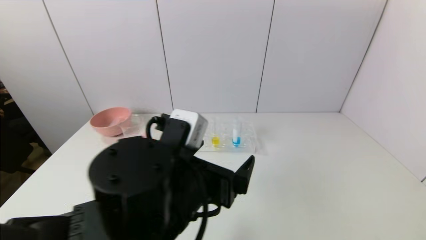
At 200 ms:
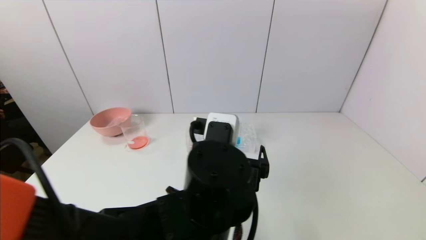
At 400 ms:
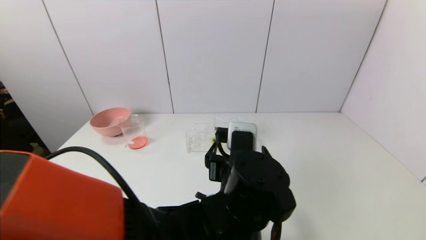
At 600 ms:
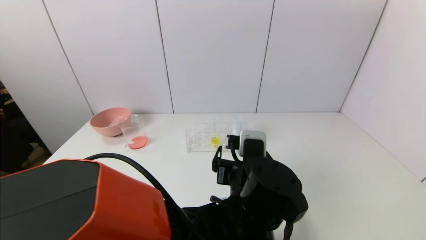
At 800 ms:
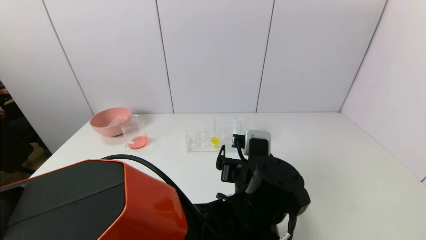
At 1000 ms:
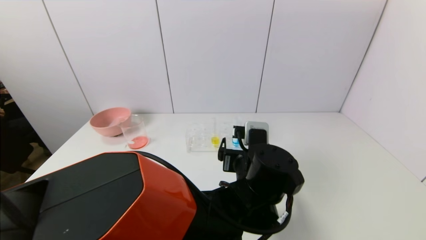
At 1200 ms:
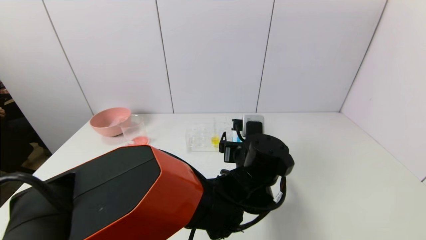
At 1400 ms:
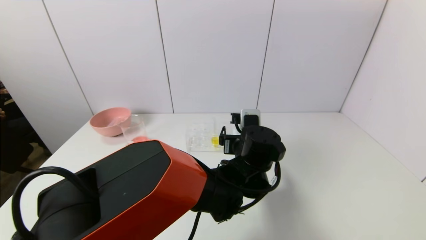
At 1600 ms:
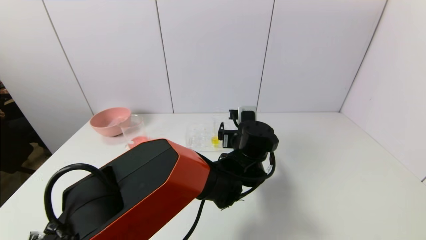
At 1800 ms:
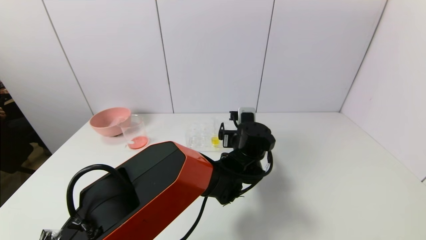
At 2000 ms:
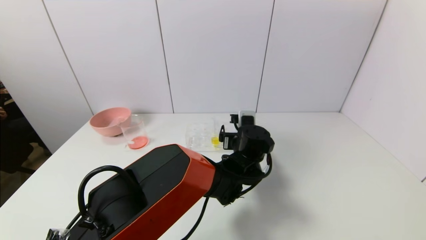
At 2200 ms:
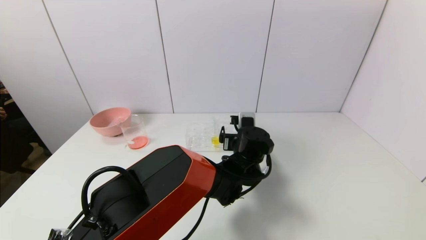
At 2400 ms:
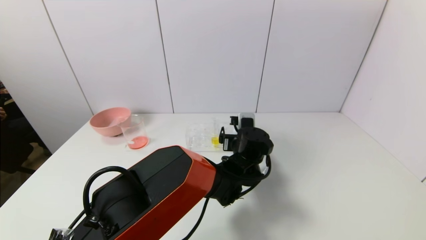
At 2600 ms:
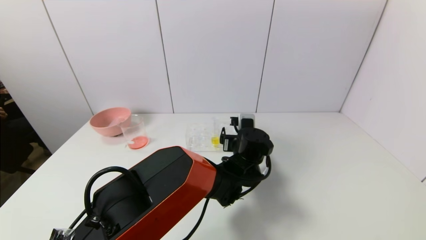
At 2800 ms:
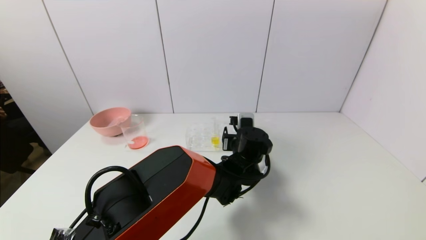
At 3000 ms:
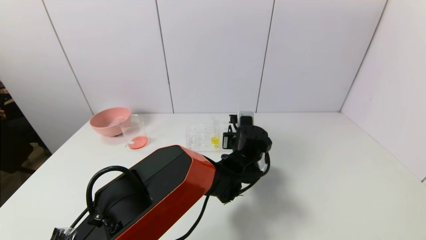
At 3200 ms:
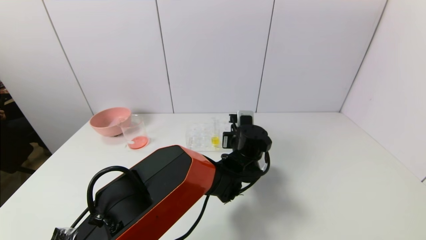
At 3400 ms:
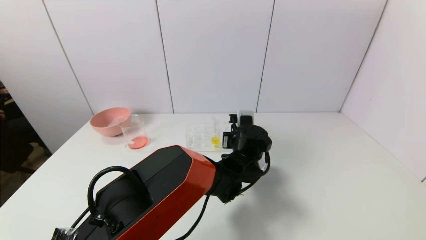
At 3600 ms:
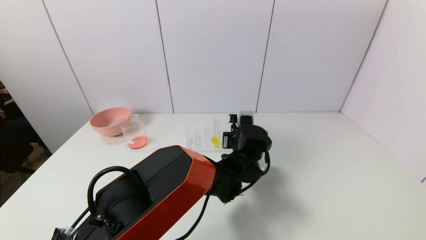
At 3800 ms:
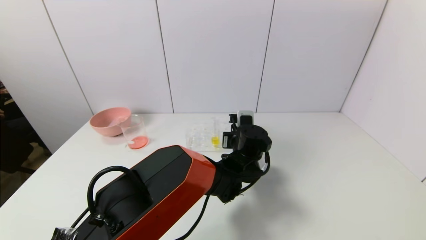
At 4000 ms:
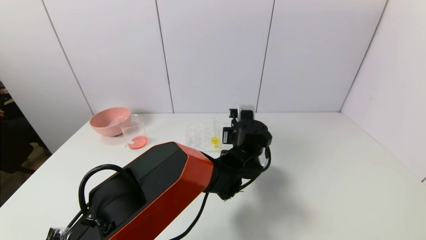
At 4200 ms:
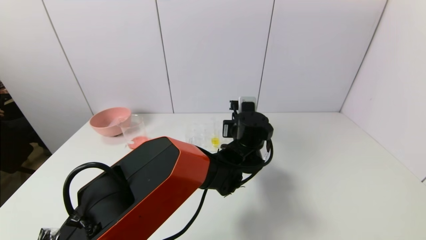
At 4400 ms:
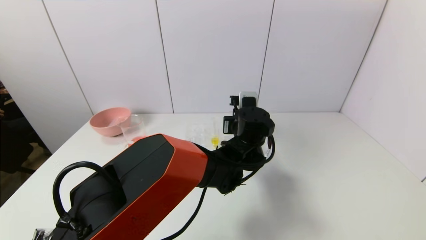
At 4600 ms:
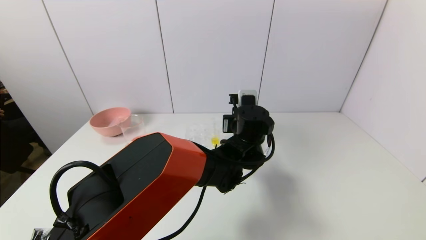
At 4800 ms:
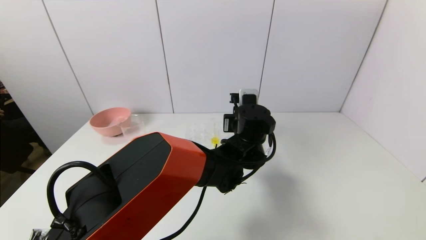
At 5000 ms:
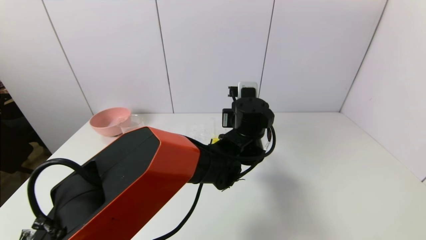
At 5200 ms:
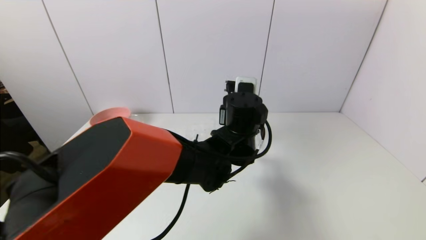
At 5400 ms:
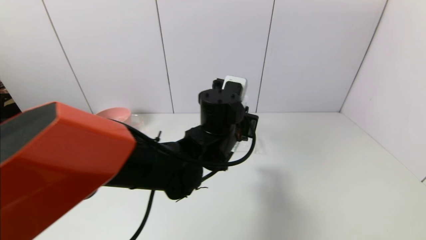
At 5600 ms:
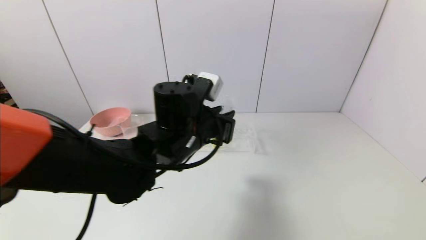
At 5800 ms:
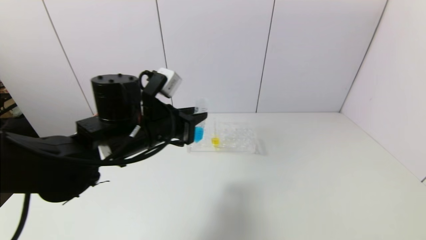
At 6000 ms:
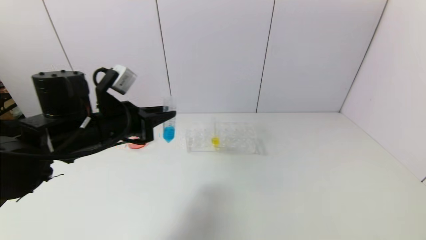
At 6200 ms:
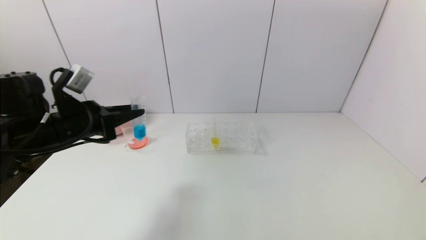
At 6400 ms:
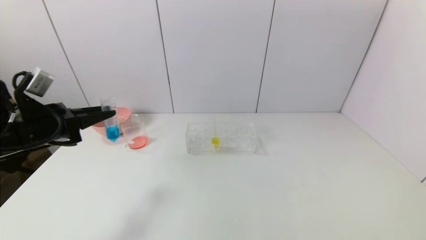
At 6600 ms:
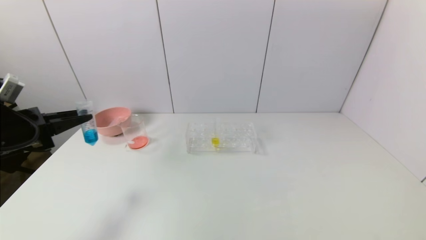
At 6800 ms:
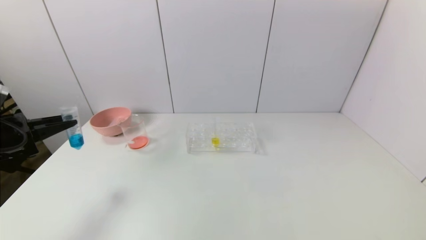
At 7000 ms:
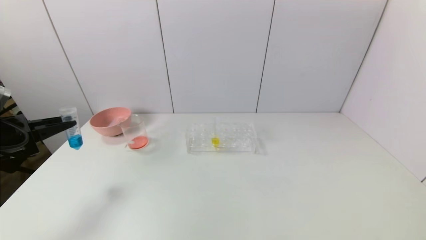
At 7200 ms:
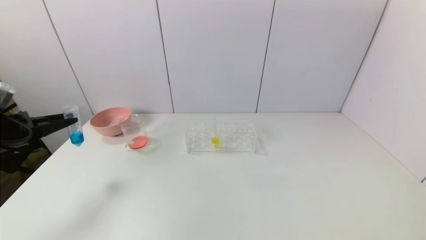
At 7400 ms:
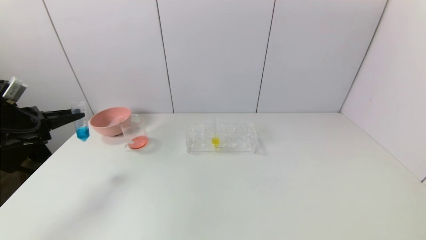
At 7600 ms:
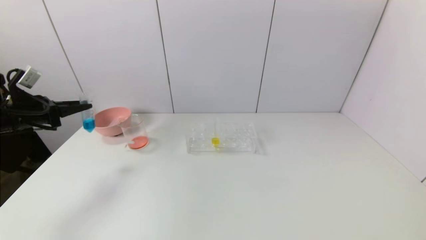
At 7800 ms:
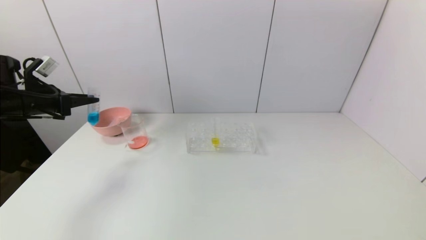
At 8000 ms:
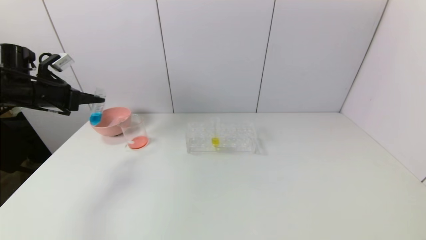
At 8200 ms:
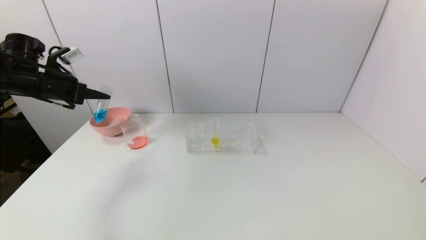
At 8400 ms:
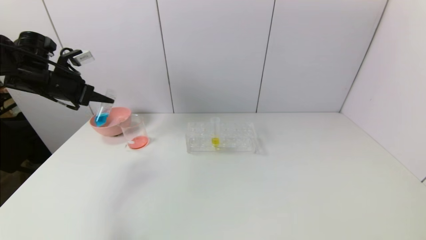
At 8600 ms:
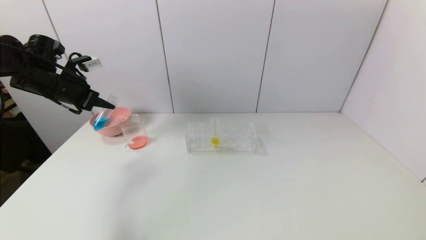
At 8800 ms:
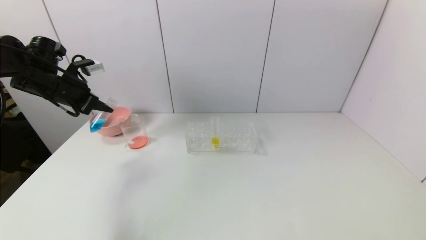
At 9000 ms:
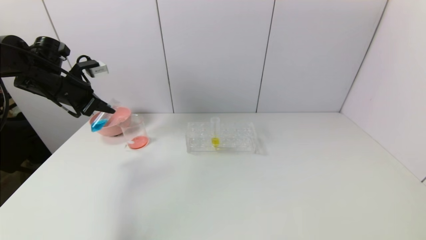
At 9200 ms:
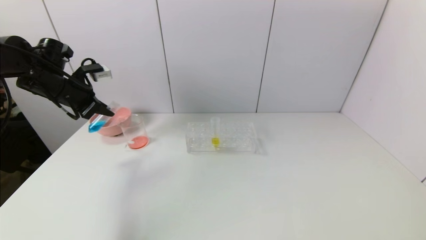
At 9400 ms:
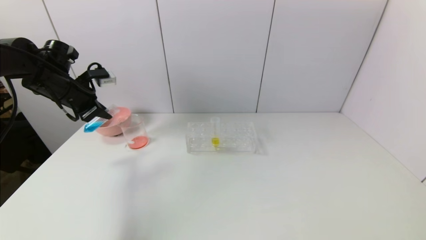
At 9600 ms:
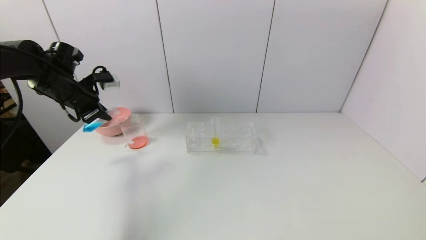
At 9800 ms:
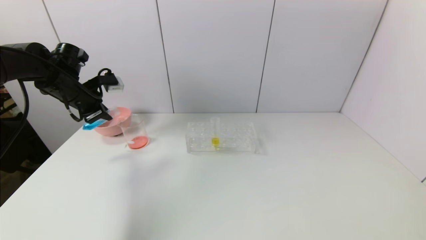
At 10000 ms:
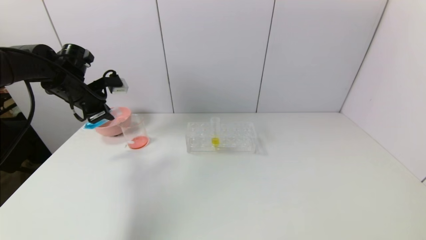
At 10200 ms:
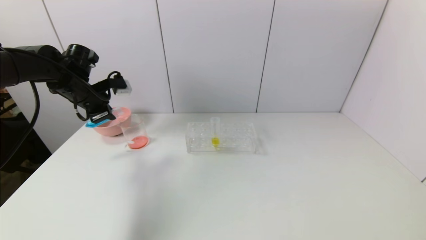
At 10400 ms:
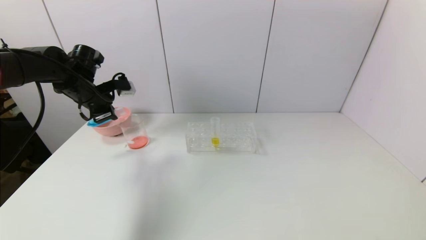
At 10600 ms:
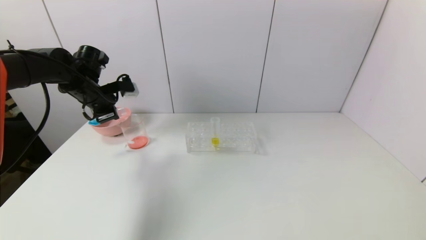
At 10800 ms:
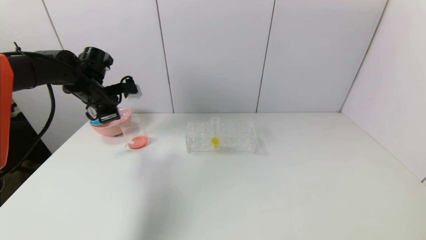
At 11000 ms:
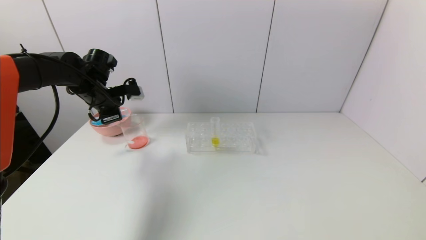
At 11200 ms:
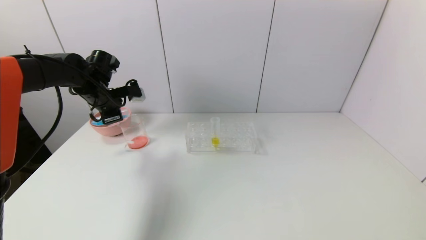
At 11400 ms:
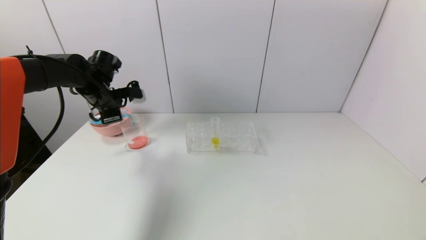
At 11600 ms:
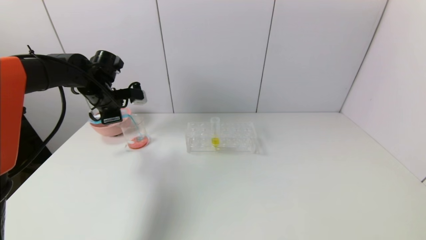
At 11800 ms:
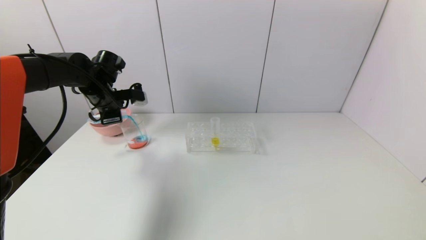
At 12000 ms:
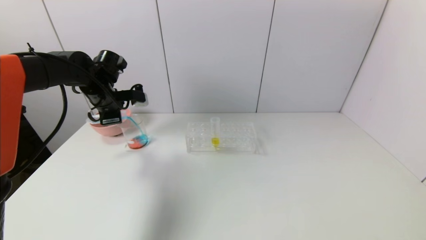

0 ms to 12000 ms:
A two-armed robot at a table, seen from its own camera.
Task of the whole recording: pick up the test tube with red pigment and the test tube with blue pigment by grippers and pour them into the container.
Step, 0 ms to 3200 ms: Grasp the blue reagent with the left gripper.
0 ms to 1600 ms: The left gripper moves forward, to the right and downward, roughly 25 cm.
1600 ms to 3000 ms: The left gripper closes its fingers.
3000 ms to 4400 ms: The left gripper travels upward by some 5 cm.
4400 ms to 6000 ms: The left gripper heads to the left, covering about 30 cm.
6000 ms to 7600 ms: The left gripper moves to the left, roughly 20 cm.
7600 ms to 9000 ms: The left gripper moves to the right and forward, about 10 cm.
9000 ms to 10400 ms: The left gripper ends up some 5 cm from where it was.
10400 ms to 12000 ms: The grippers stay close to where they were, moving slightly.

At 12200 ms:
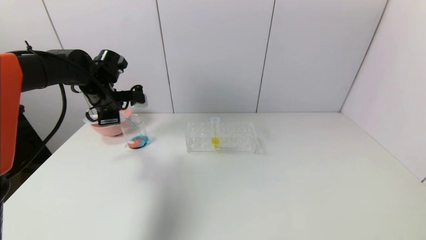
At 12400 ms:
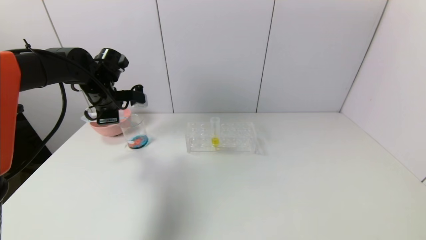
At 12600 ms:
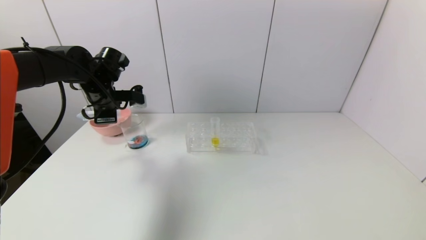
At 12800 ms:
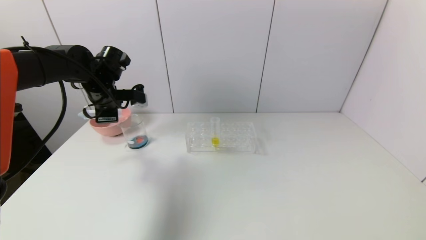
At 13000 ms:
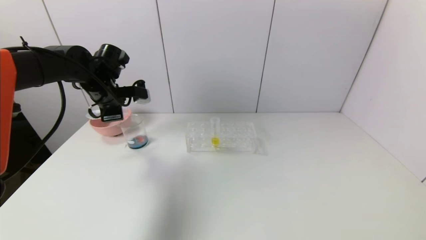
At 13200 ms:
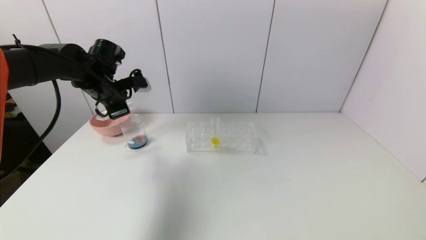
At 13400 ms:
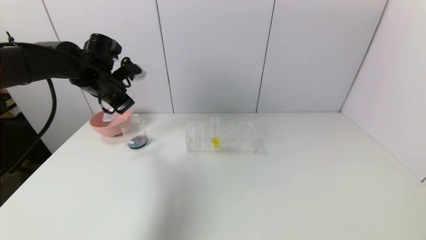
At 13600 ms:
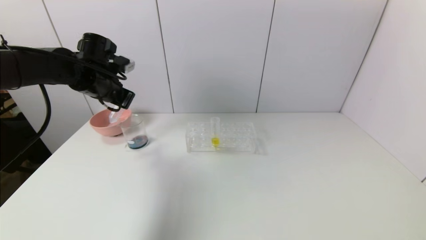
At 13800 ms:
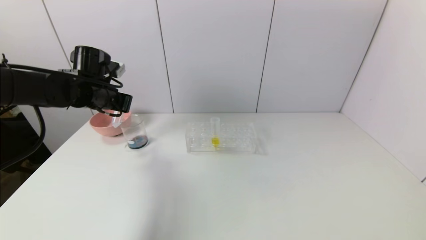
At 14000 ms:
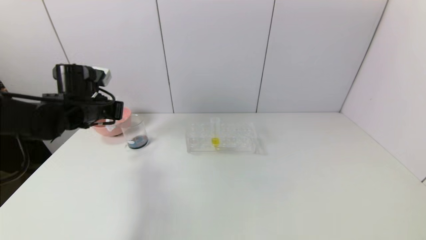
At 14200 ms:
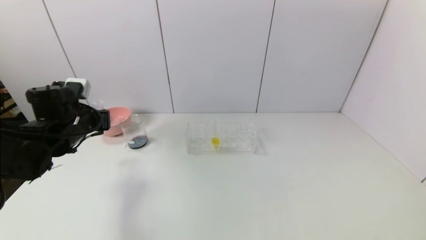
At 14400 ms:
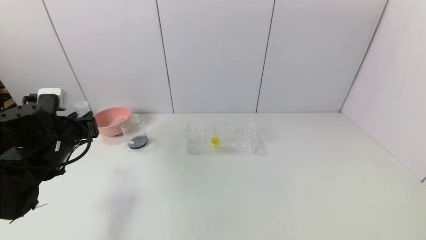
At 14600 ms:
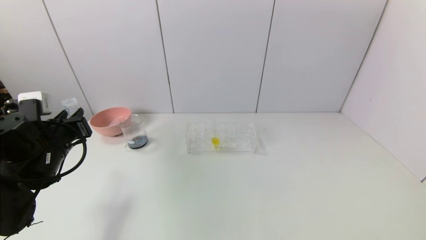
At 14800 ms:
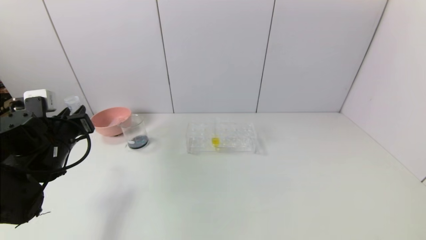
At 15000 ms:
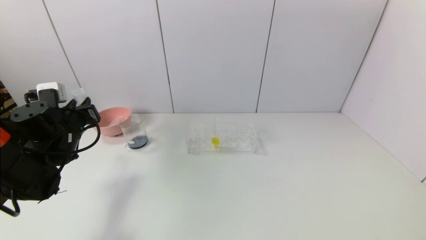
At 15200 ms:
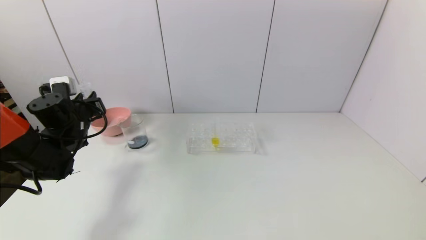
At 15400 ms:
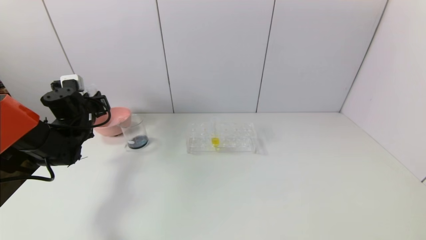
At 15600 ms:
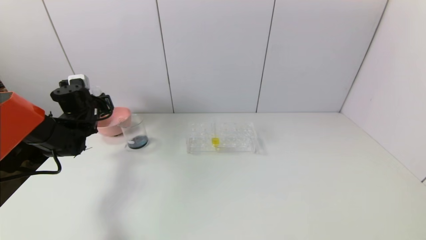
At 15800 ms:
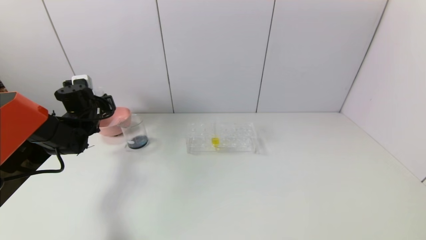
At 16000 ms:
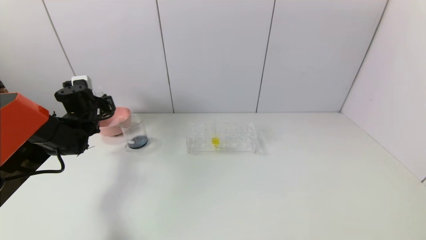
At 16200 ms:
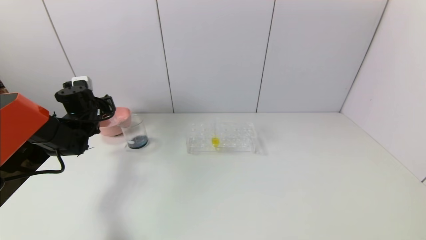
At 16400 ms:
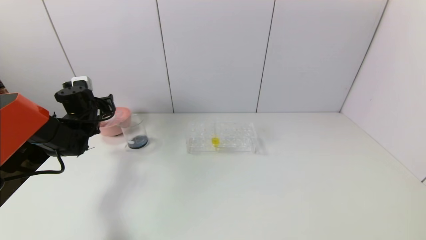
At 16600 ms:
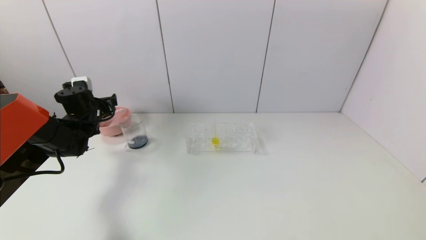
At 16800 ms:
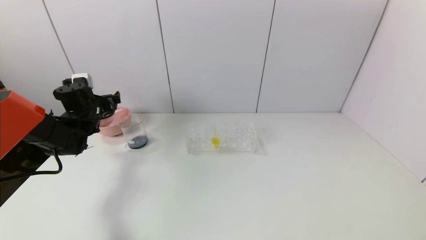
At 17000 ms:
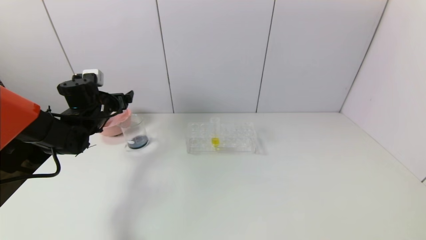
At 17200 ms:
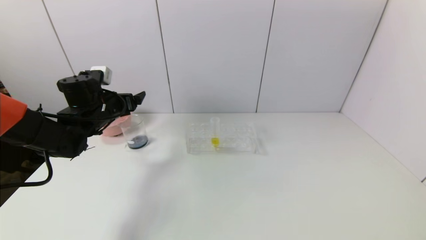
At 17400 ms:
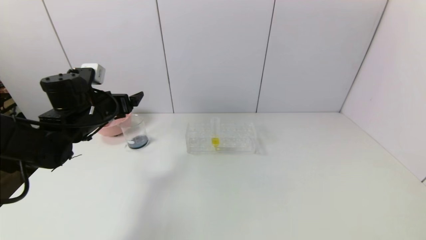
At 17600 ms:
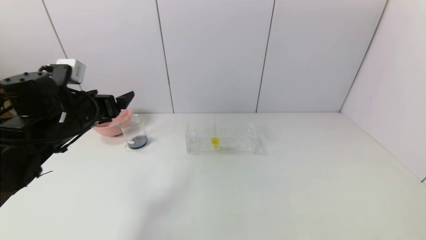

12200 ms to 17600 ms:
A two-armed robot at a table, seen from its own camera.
Task of the whole recording: pick up the test tube with red pigment and the test tube with blue pigment by grippers and pour them into the container.
Step, 13200 ms to 16400 ms: Place the test tube into the bowl with the left gripper.
13600 ms to 15000 ms: The left gripper shifts approximately 15 cm downward, backward and to the left.
15000 ms to 16200 ms: The left gripper heads forward, covering about 10 cm.
16200 ms to 17600 ms: The left gripper travels backward, upward and to the right by about 20 cm, and opens its fingers.
